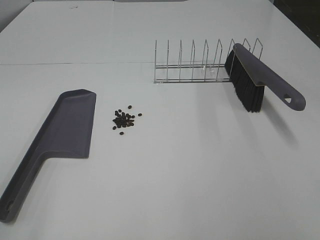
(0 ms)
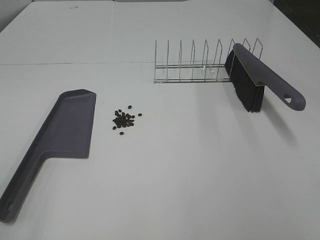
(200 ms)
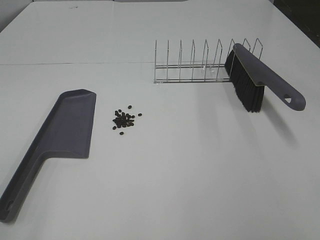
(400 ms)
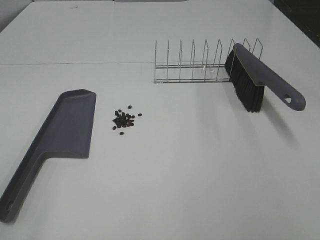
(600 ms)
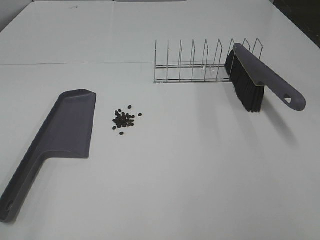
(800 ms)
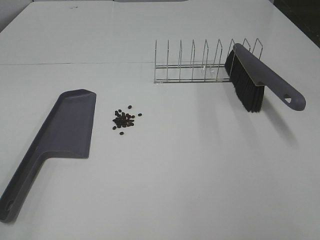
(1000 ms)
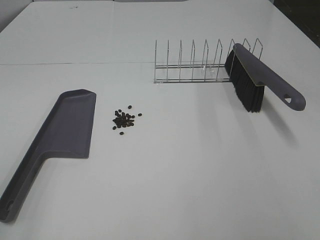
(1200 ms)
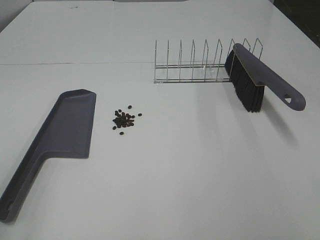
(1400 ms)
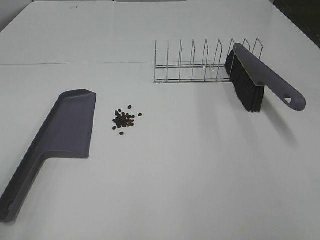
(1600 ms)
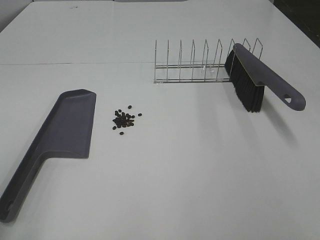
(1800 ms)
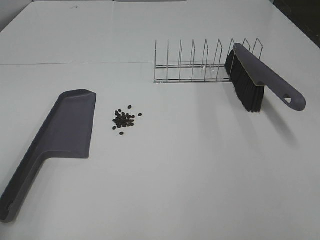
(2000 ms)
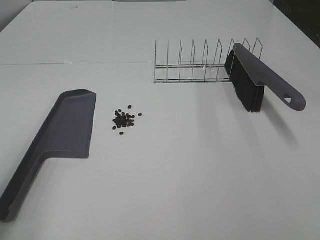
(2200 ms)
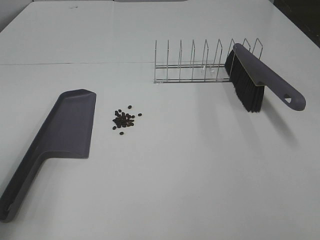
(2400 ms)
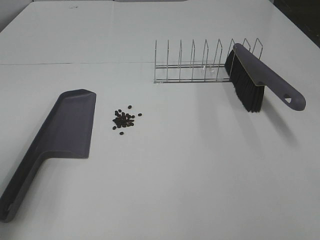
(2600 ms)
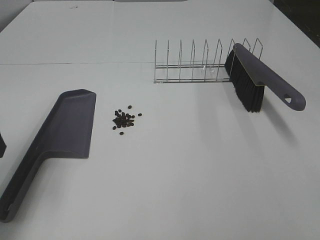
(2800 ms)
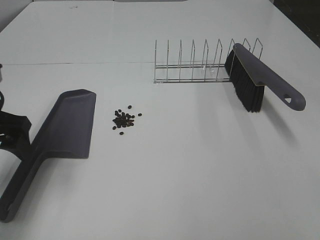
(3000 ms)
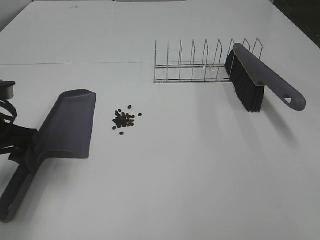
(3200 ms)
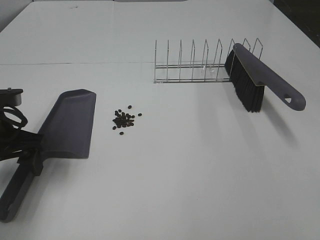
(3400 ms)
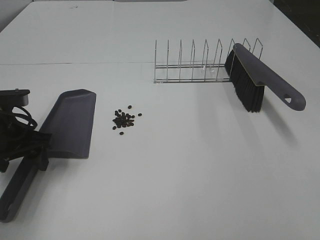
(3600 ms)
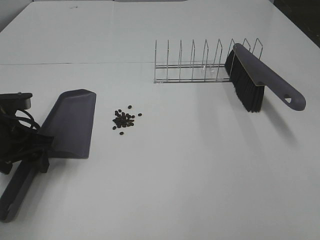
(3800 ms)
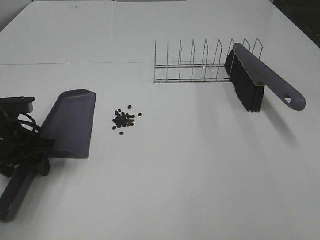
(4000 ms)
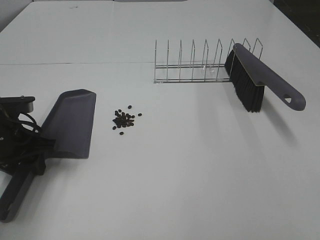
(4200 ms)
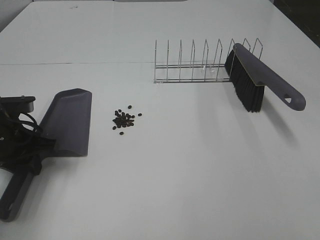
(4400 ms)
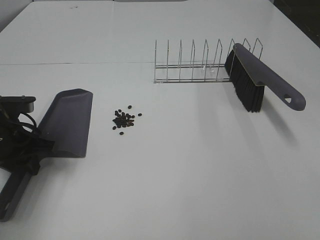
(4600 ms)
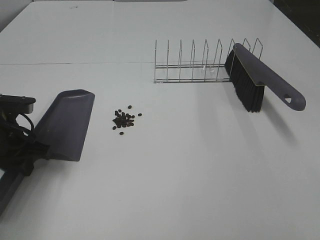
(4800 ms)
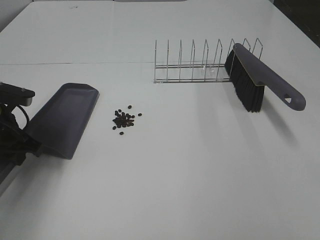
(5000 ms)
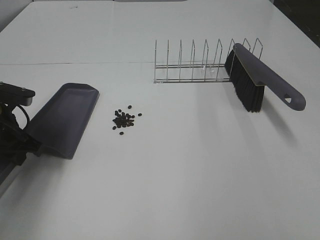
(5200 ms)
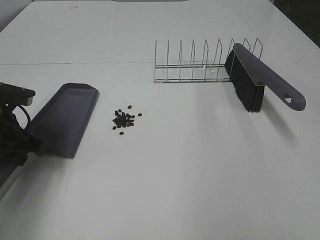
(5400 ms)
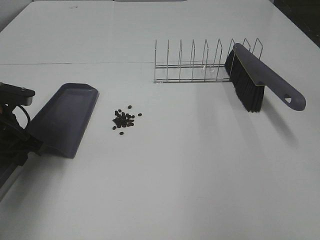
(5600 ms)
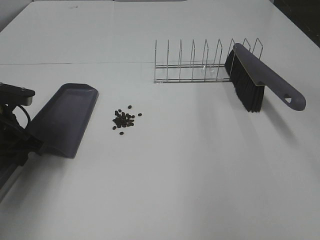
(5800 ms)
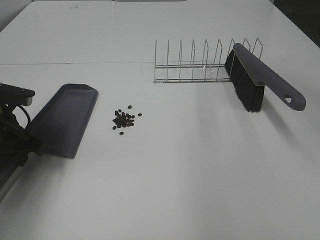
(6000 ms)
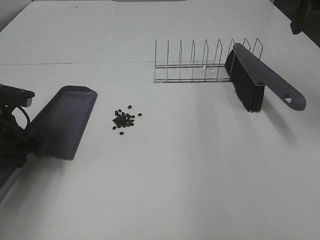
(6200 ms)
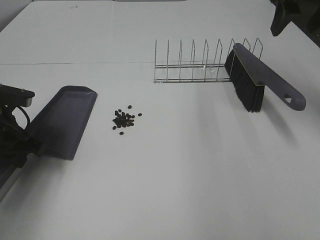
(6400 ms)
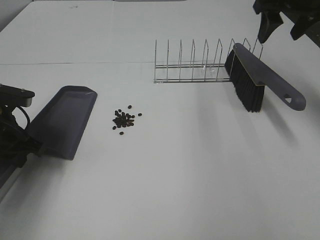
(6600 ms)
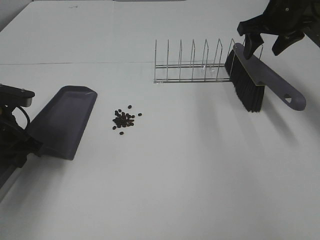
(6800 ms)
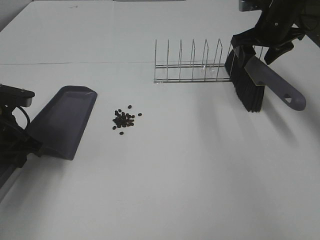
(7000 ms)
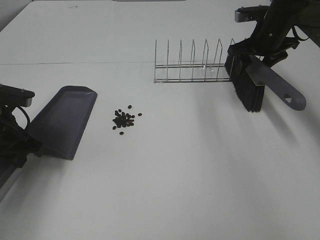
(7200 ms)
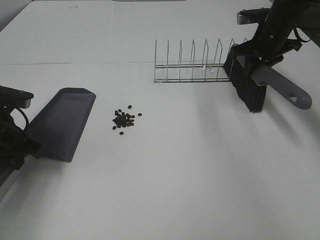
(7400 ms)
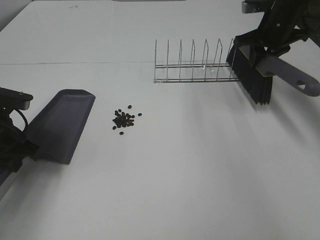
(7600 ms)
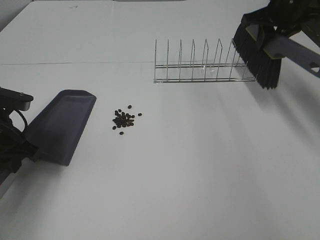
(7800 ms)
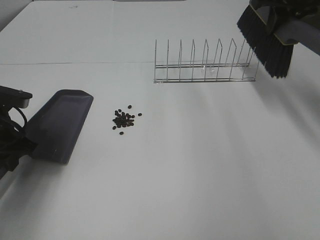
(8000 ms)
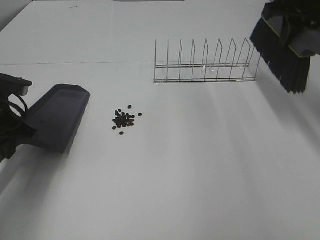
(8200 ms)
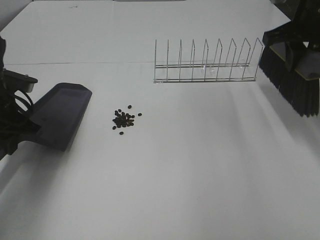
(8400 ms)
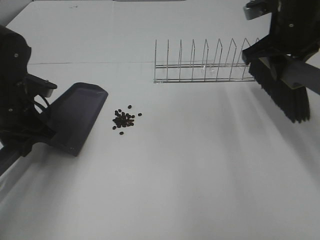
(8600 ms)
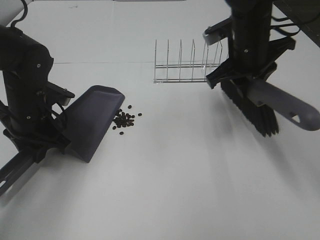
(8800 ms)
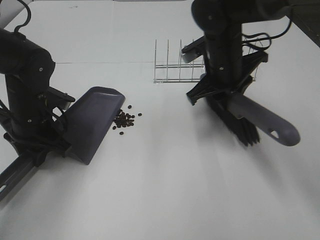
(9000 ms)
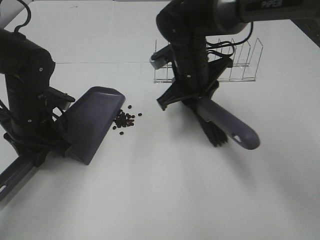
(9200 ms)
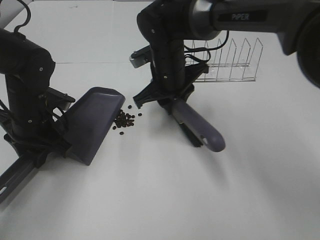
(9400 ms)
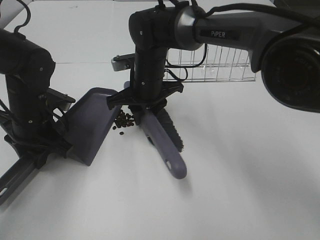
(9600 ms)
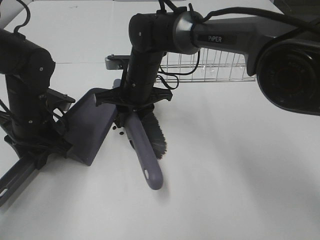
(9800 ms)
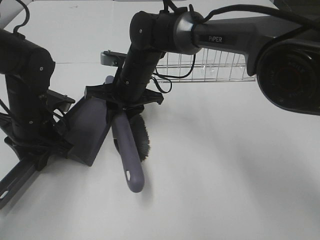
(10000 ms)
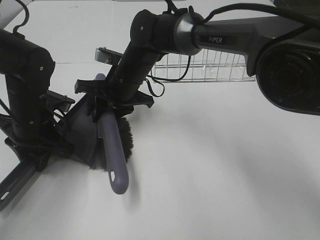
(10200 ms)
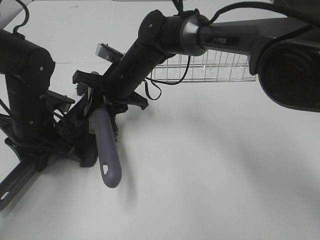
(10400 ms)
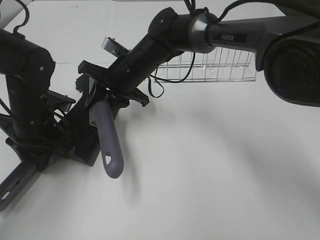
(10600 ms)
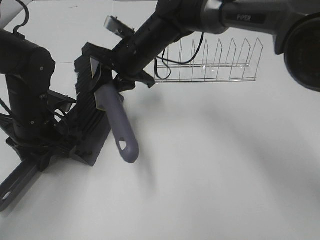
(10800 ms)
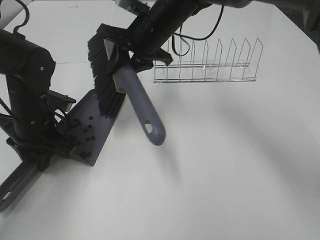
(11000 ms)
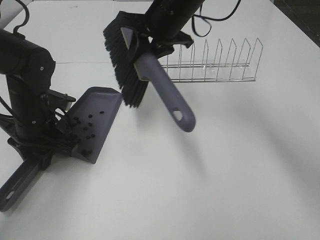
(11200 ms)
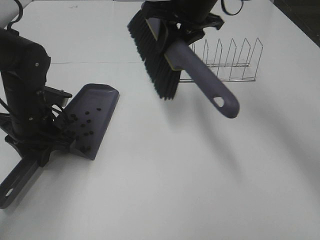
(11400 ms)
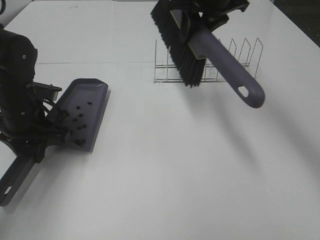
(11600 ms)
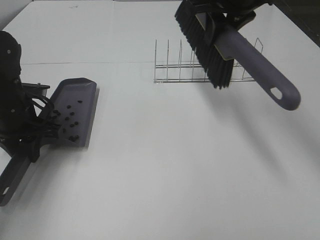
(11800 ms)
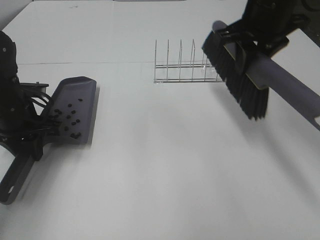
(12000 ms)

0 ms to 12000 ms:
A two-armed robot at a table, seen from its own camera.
Task of the whole recording: Sweep Coffee Bean.
Step, 0 ms to 4400 ms: Left hand: grab the dustpan.
Step, 4800 ms to 7200 ms: Right hand:grab the broom.
Step, 7400 ms to 10800 ms: Right hand:sweep the coffee beans into the dustpan.
1600 ms to 3000 ms: The left gripper heads forward and downward, covering about 20 cm.
3000 ms to 4400 ms: The left gripper heads downward, covering some 10 cm, and closes its fingers.
6000 ms to 7600 ms: The right gripper shifts approximately 25 cm forward and downward, and closes its fingers.
7600 ms to 9000 ms: The left gripper moves to the right, about 5 cm, while the right gripper is displaced to the left and backward by about 20 cm.
9000 ms to 10400 ms: The right gripper is displaced to the left by about 15 cm.
10400 ms to 12000 ms: The right gripper is displaced to the right and upward by some 25 cm.

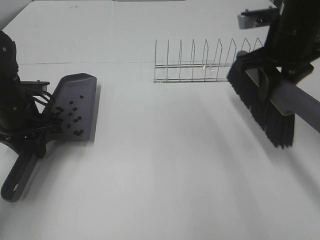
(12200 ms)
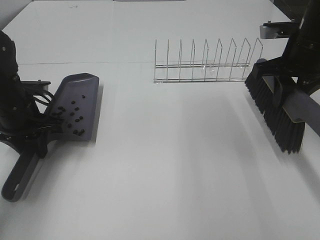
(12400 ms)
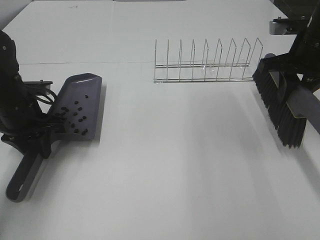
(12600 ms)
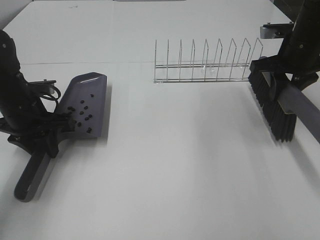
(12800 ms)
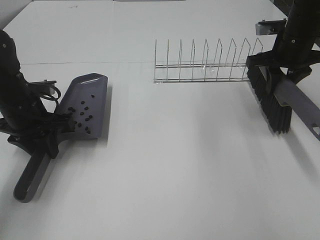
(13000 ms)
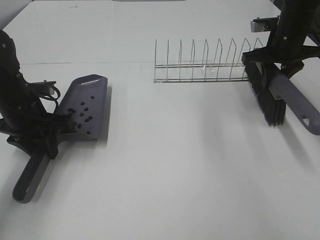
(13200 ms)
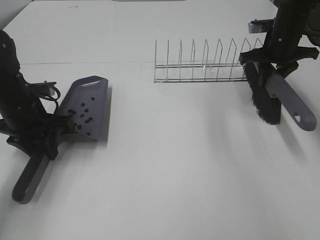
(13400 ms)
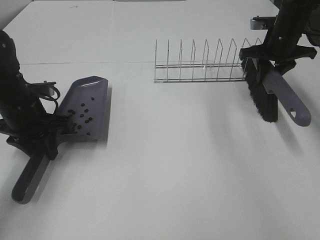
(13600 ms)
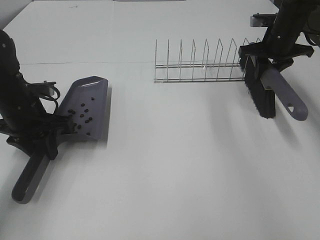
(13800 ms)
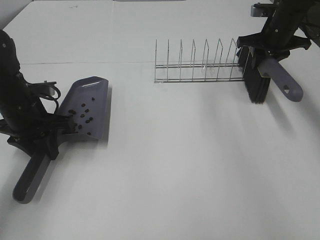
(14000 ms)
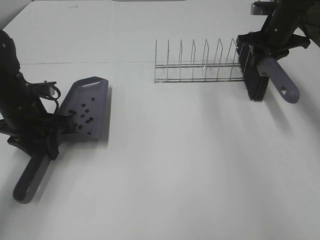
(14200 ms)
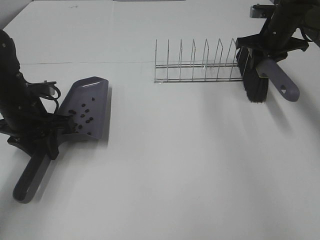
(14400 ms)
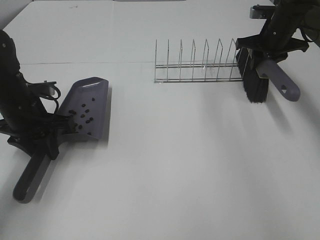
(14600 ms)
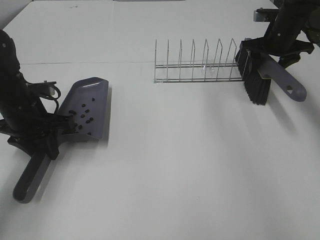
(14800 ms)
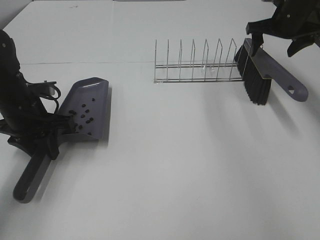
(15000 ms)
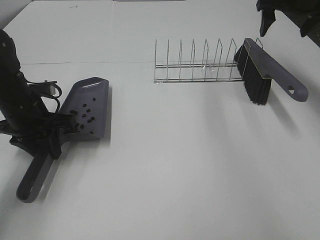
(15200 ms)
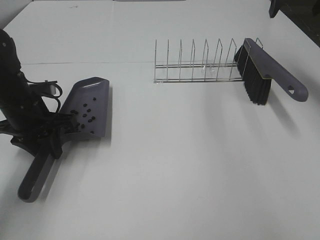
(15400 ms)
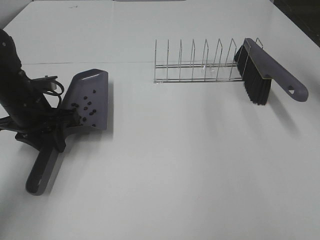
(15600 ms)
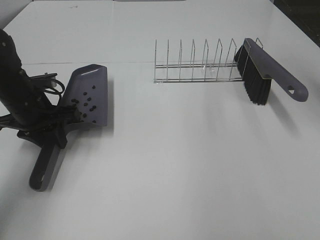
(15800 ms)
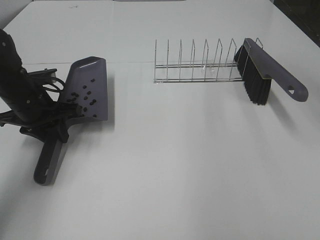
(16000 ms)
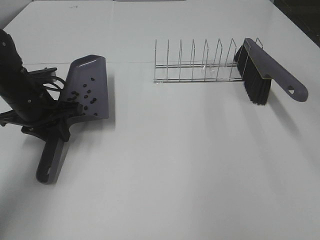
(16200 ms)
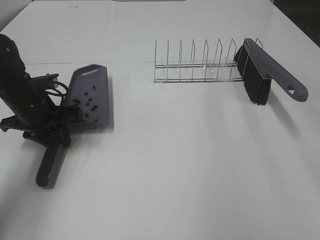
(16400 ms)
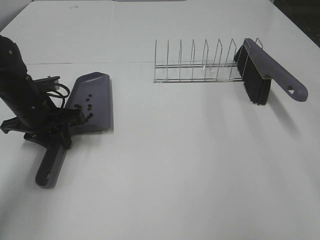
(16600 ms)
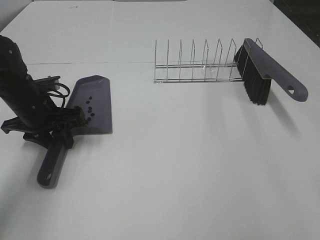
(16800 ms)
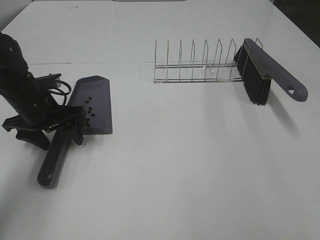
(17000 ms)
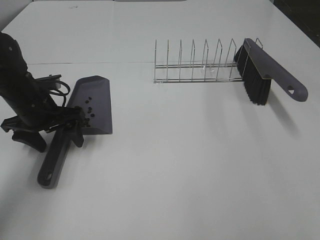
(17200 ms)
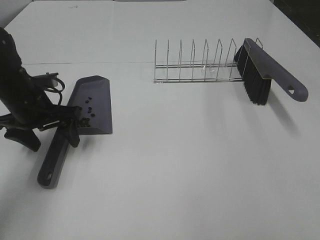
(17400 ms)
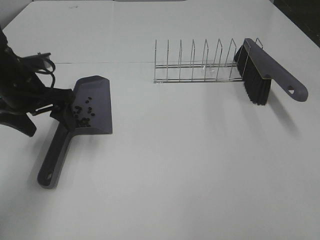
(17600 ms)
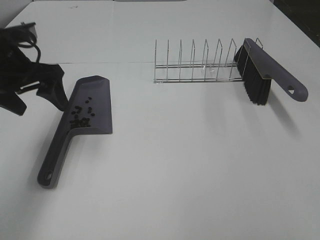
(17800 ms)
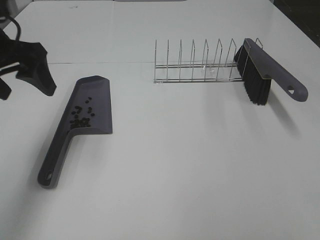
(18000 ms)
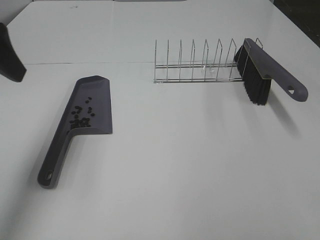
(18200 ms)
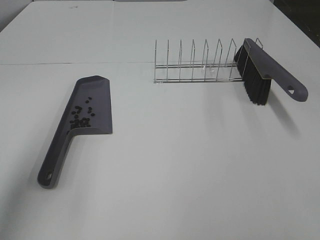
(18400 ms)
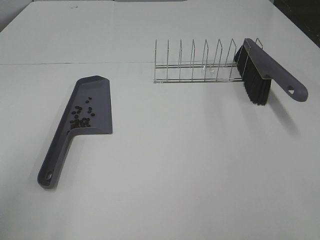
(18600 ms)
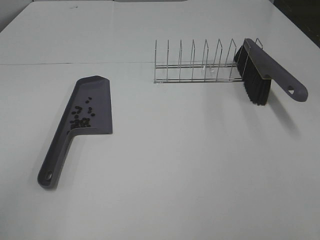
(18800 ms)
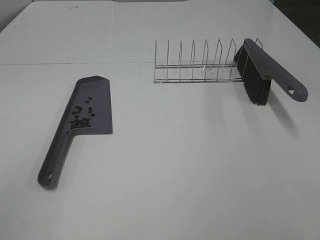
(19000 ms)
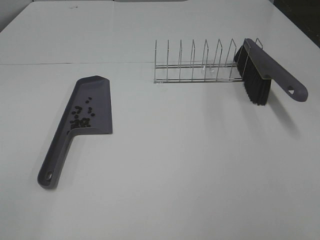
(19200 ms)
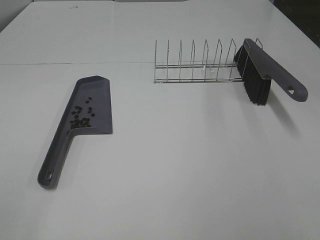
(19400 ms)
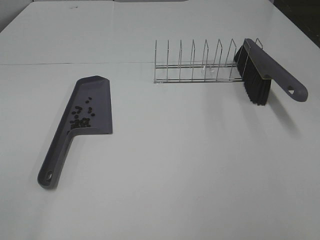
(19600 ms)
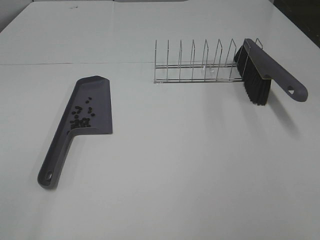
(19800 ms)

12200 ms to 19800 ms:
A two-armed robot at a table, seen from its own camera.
Task of the whole recording: Sweep Coffee Bean.
Step, 12200 ms to 14800 ms: Right hand:place the broom on the rack.
12200 ms to 13800 ms: The right gripper travels forward, downward and to the right by roughly 20 cm.
13800 ms to 15200 ms: The right gripper travels upward by roughly 10 cm, and opens up.
15200 ms to 16800 ms: The right gripper heads backward, covering some 40 cm.
16800 ms to 18200 ms: The left gripper travels upward and backward by roughly 25 cm, and opens.
18200 ms to 19800 ms: The left gripper moves backward, approximately 25 cm.

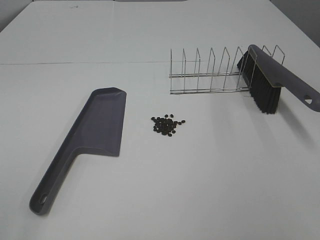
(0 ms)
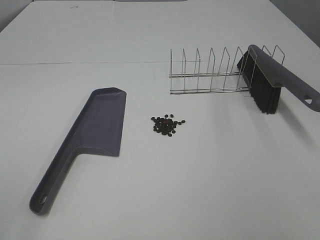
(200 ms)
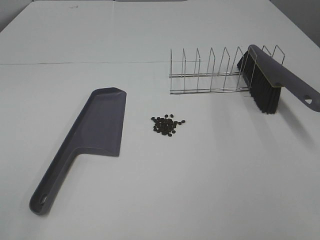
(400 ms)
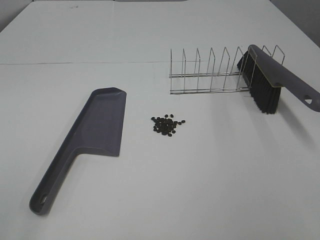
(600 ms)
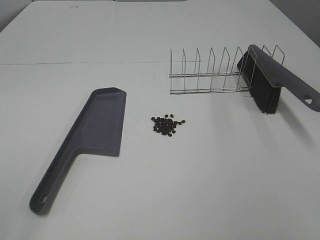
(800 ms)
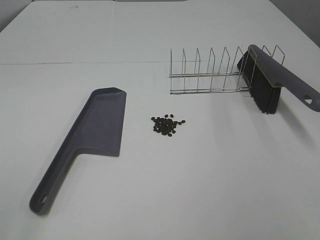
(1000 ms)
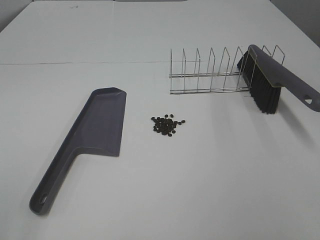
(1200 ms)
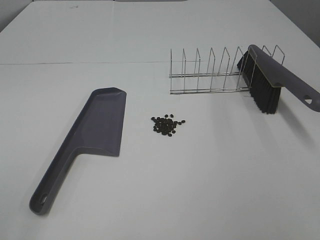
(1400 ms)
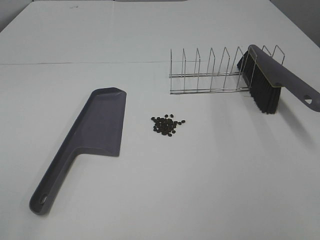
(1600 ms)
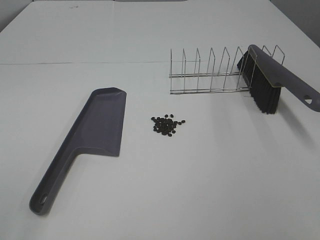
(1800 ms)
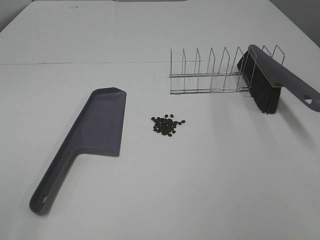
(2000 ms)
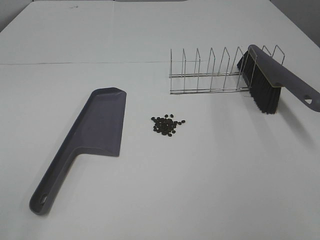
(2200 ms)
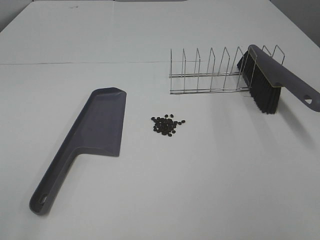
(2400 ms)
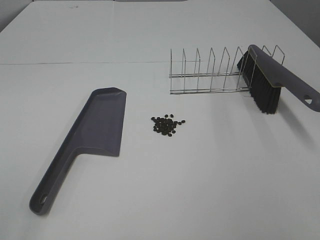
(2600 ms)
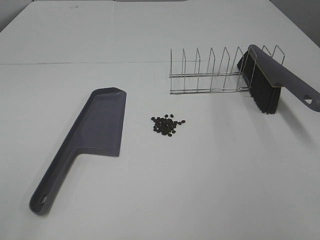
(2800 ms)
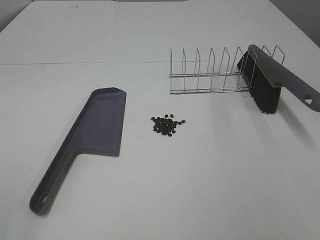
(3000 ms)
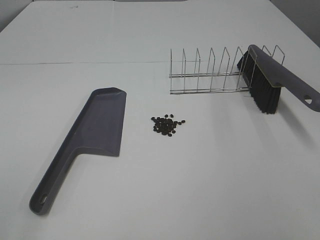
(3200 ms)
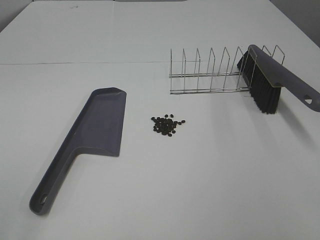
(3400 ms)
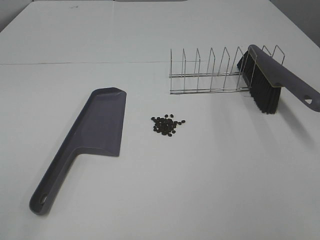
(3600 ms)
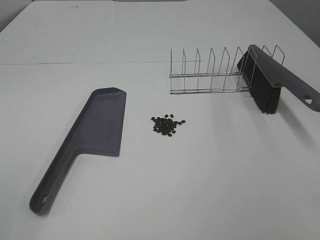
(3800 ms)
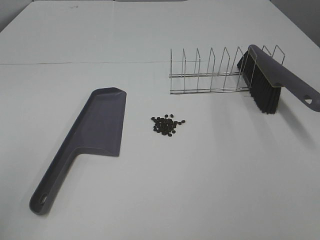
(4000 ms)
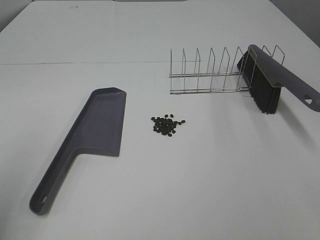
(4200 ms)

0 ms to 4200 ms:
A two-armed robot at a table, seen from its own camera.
Task of the whole recording: Sweep Coffee Bean.
0 ms to 2800 ms: Both grippers stay about where they are.
